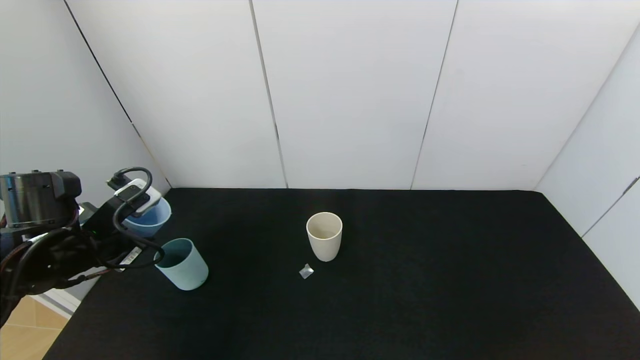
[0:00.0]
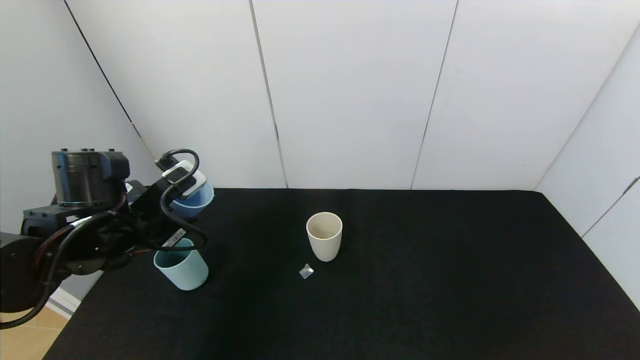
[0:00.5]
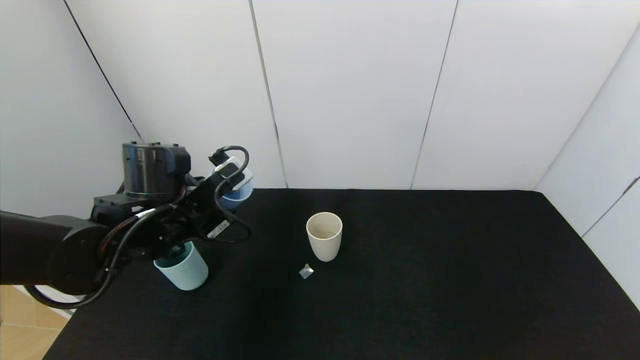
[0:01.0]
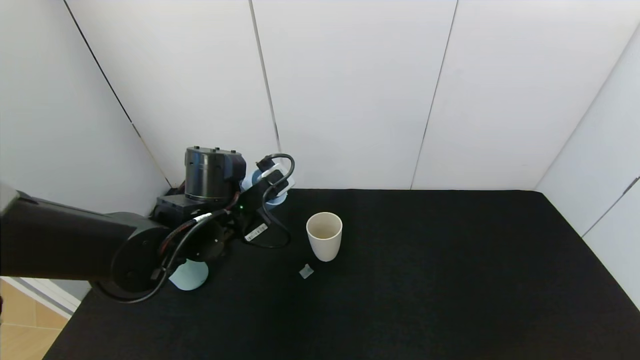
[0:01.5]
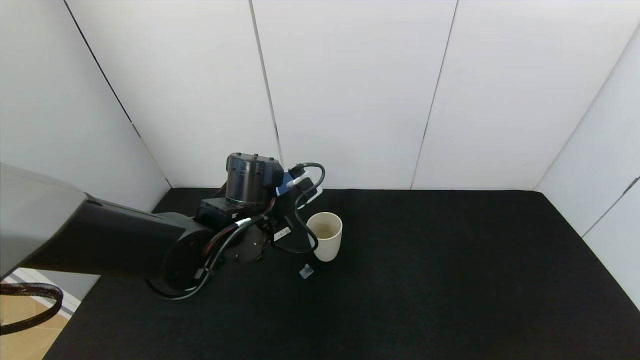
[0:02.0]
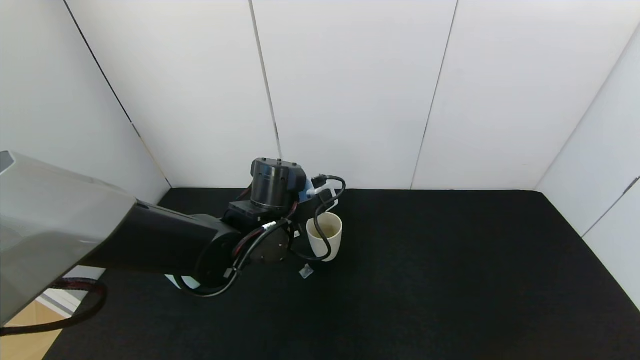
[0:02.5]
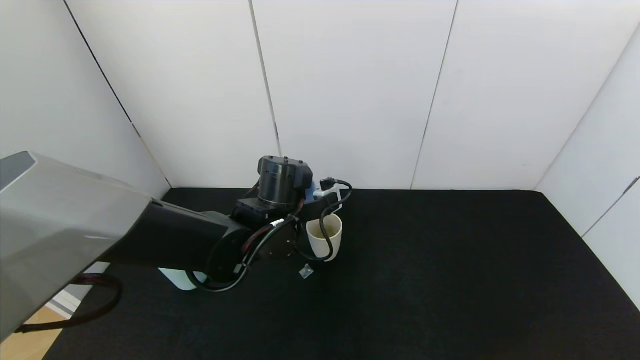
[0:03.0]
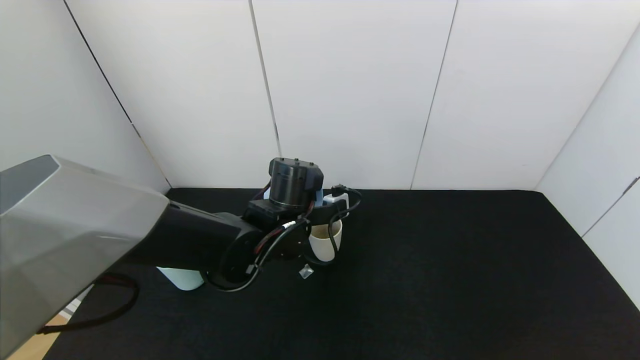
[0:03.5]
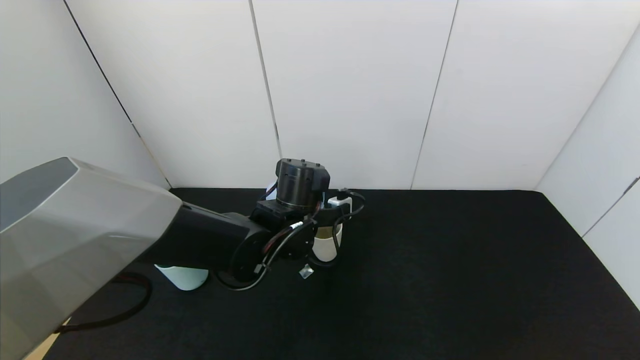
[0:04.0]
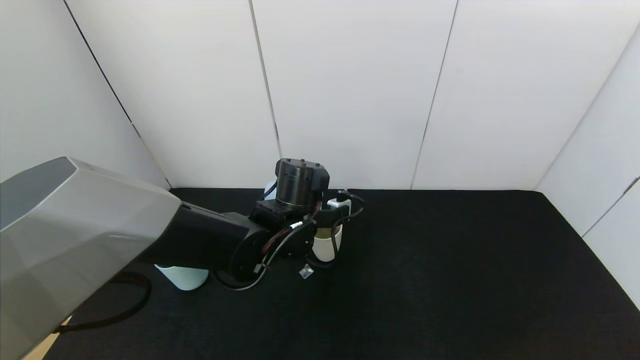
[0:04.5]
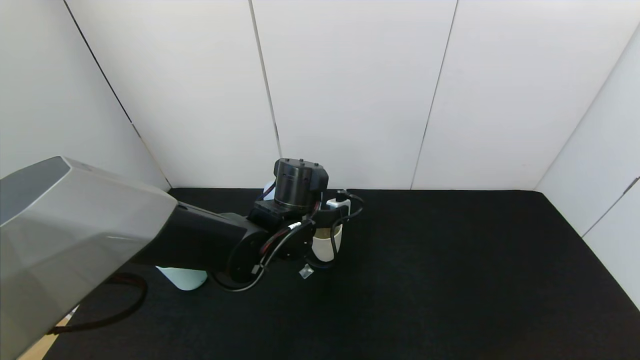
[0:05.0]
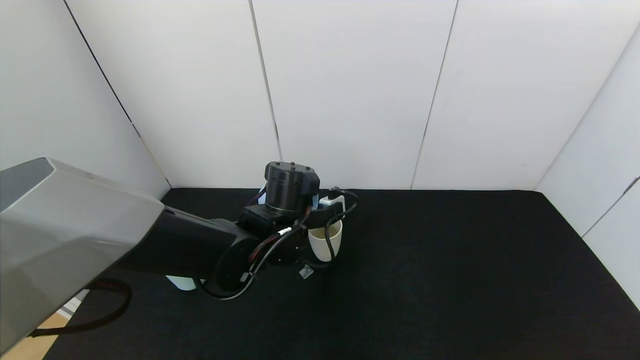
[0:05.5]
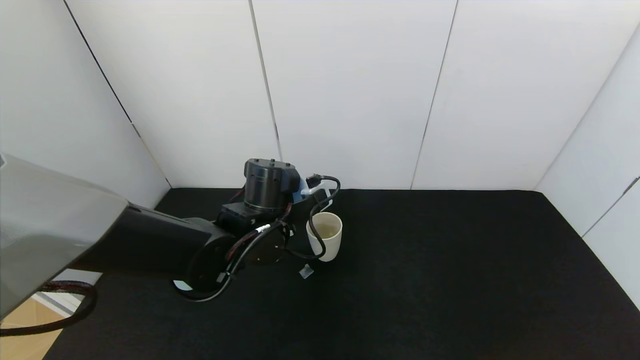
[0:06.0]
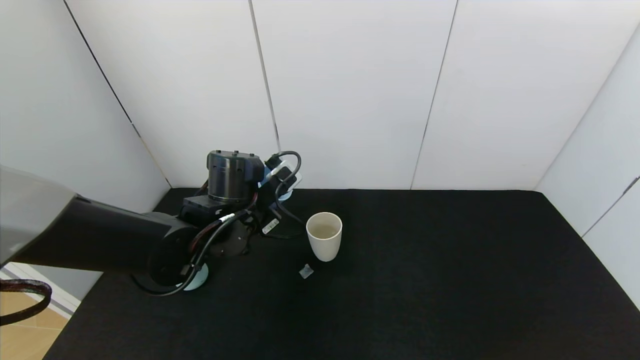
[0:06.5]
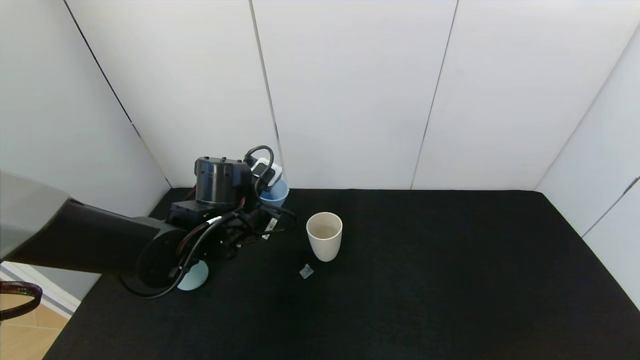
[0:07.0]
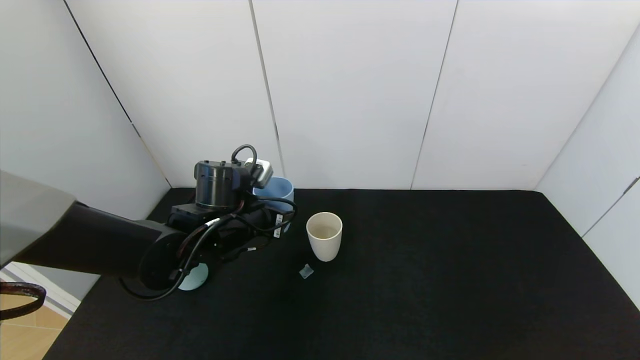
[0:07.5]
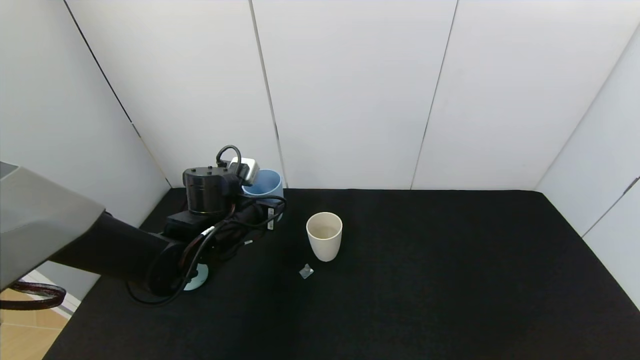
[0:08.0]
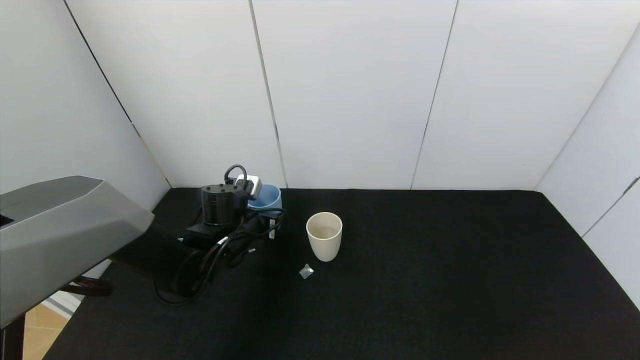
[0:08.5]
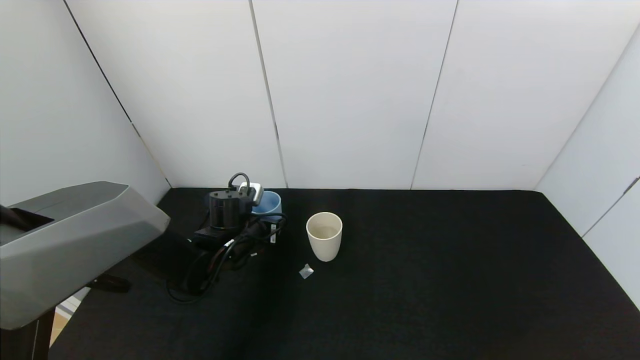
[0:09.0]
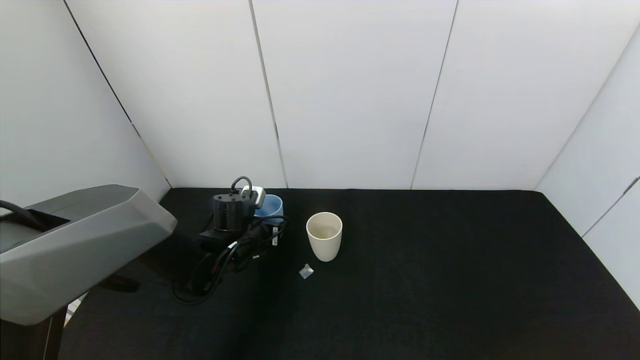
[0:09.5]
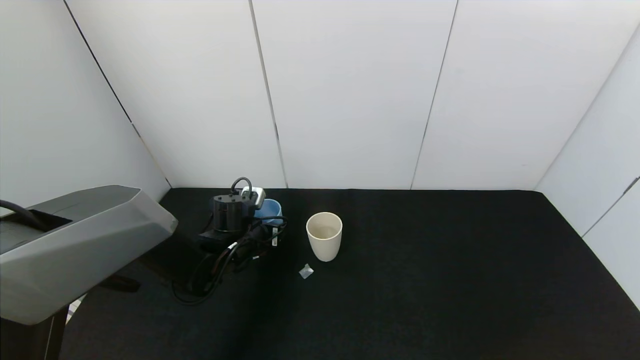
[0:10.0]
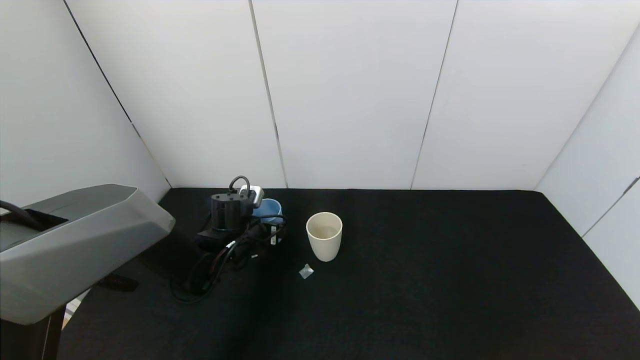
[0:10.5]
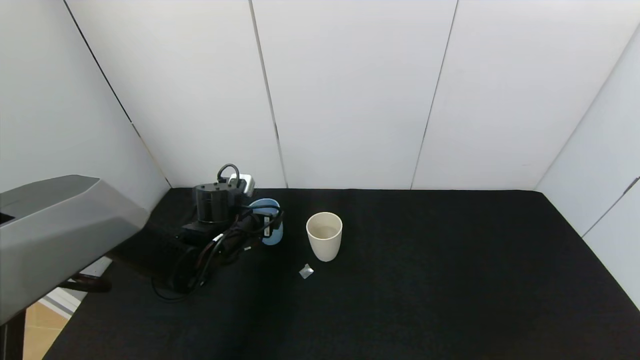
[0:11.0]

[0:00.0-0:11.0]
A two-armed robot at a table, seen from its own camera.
Task of the whole recording: use the gripper to pour the water into the other two cups on black table.
Step, 0:00.0 to 0:06.0: Pour water into the gray plastic cup with left gripper.
Step, 0:06.5 to 0:10.5: Place the blue plastic cup on the table with left gripper.
0:00.0 to 0:02.0: The left gripper shifts about 20 cm to the right.
0:03.5 to 0:05.5: There are only small adjustments of the grippers.
0:05.5 to 0:07.5: The left gripper travels to the left by about 10 cm.
0:07.5 to 0:09.0: The left gripper heads downward and forward, covering some 10 cm.
0:09.0 to 0:11.0: The left gripper opens its fingers.

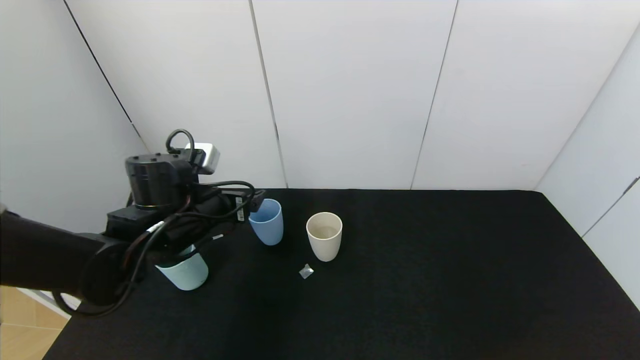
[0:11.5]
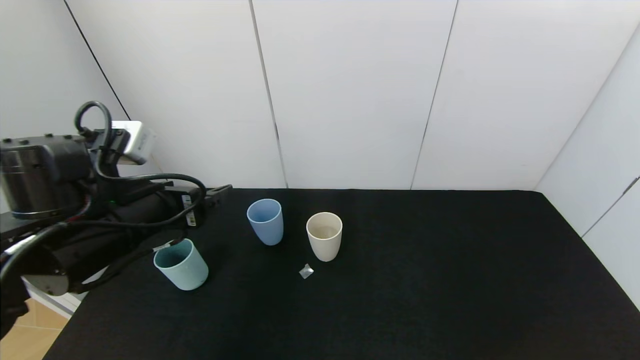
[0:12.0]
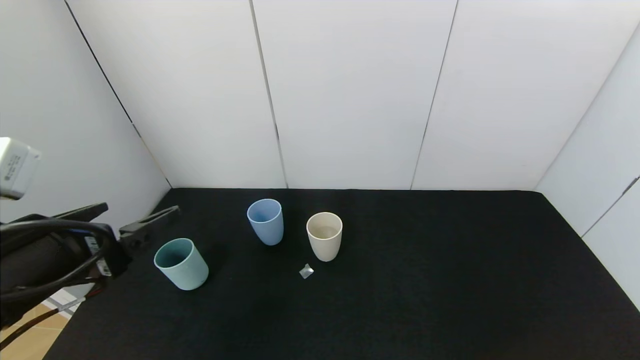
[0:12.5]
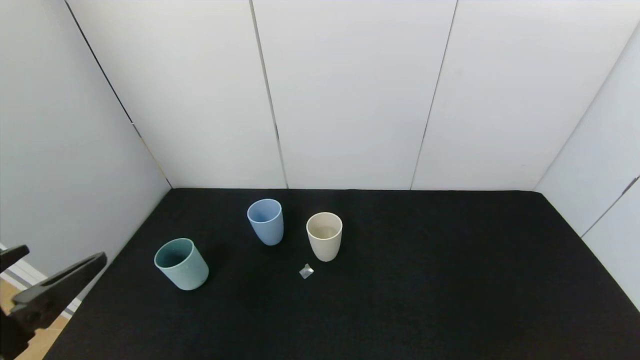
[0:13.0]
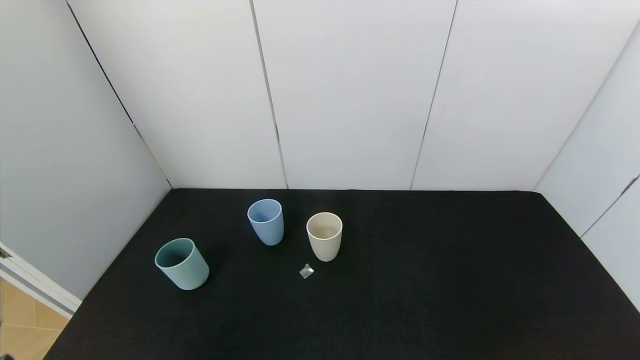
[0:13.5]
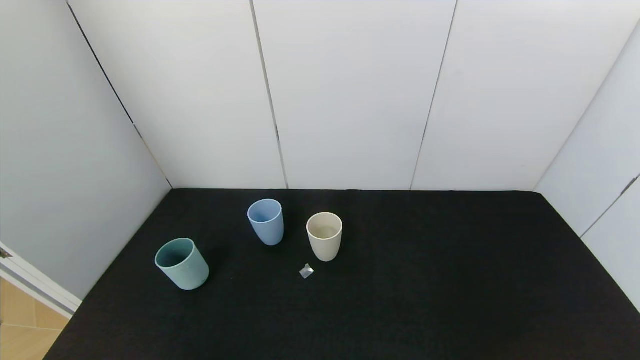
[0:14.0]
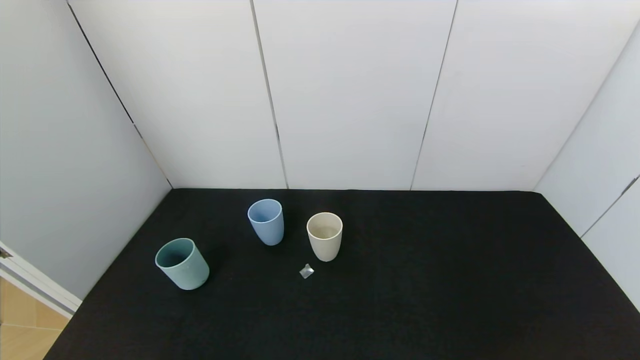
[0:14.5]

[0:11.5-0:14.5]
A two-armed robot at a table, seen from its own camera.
Task of the whole recording: use the gripper to pour the water into the other two cups on black table.
0:11.5 to 0:13.0: The left gripper shifts approximately 25 cm backward.
0:13.0 to 0:14.5: The left gripper travels downward and backward by about 15 cm.
